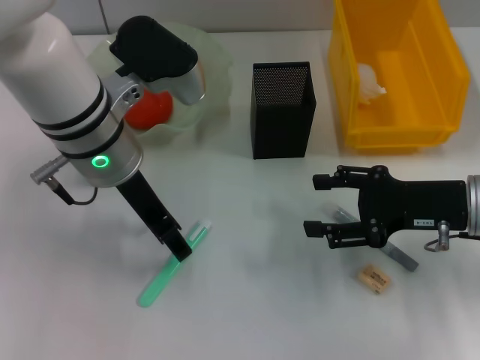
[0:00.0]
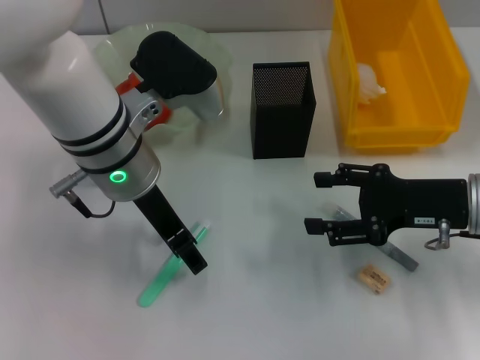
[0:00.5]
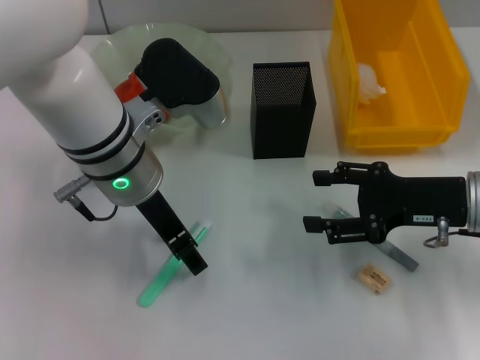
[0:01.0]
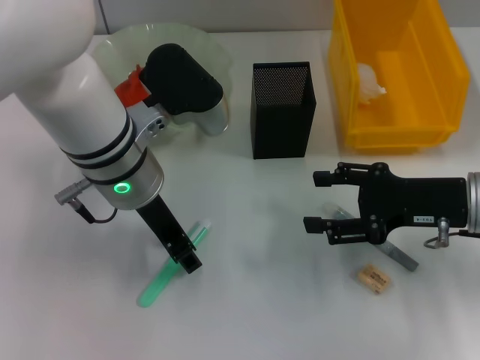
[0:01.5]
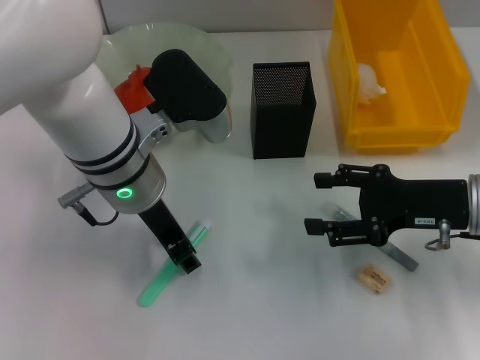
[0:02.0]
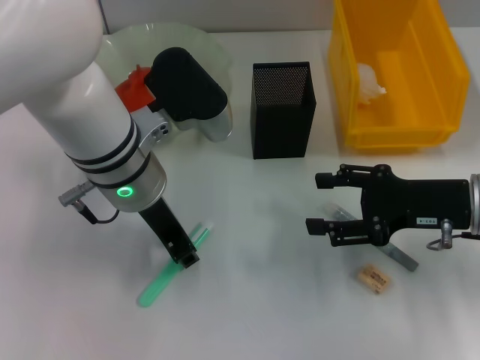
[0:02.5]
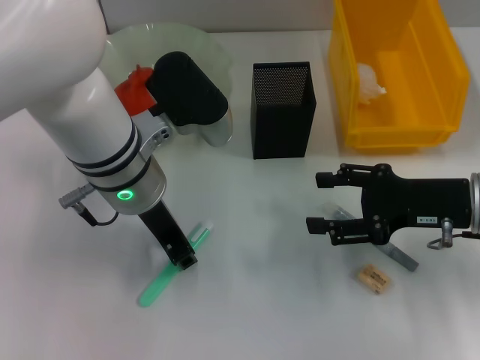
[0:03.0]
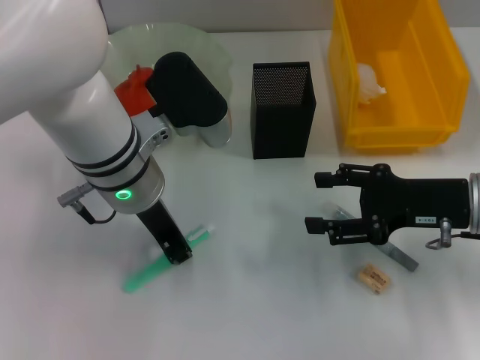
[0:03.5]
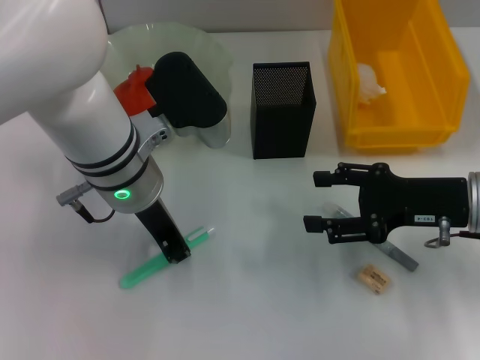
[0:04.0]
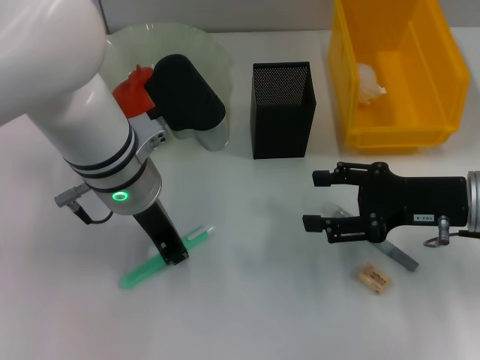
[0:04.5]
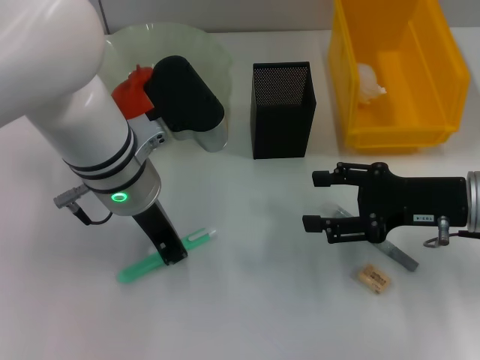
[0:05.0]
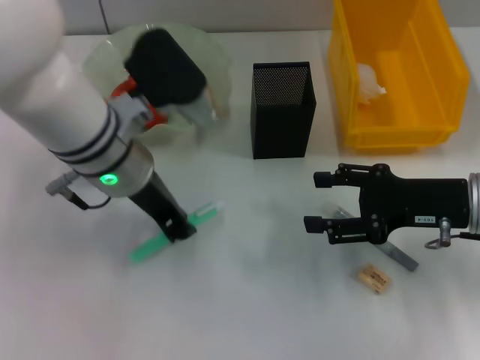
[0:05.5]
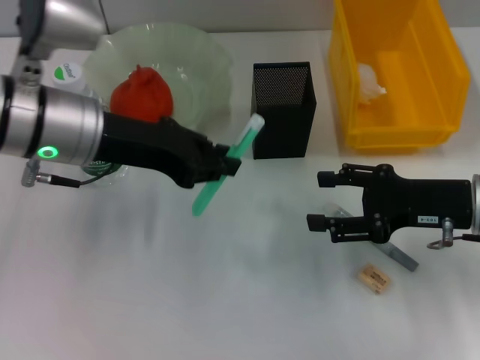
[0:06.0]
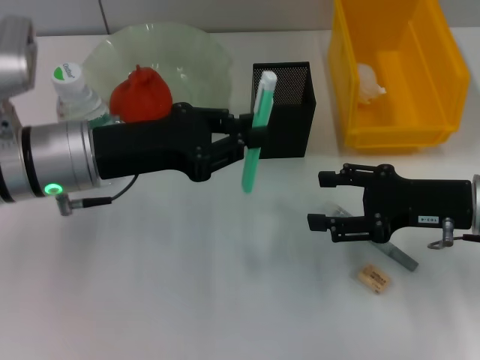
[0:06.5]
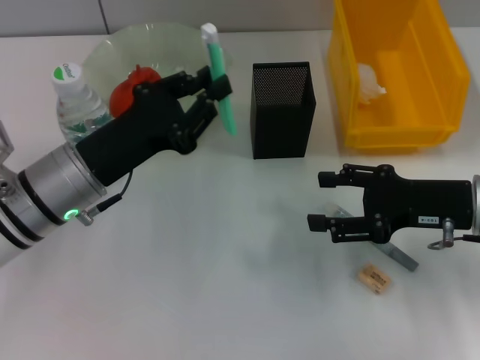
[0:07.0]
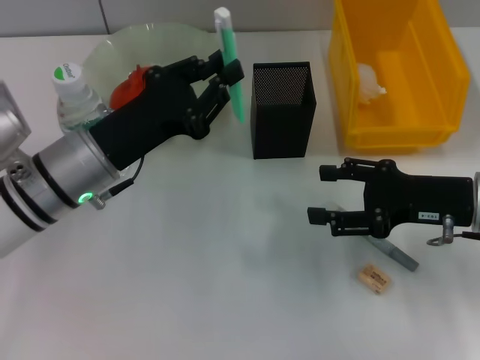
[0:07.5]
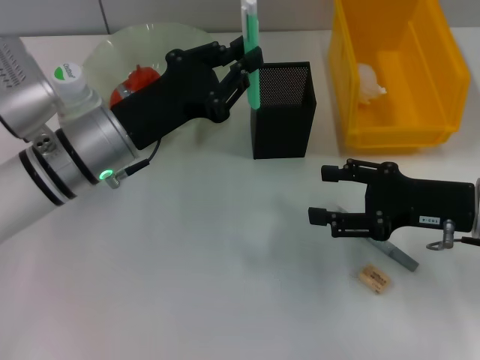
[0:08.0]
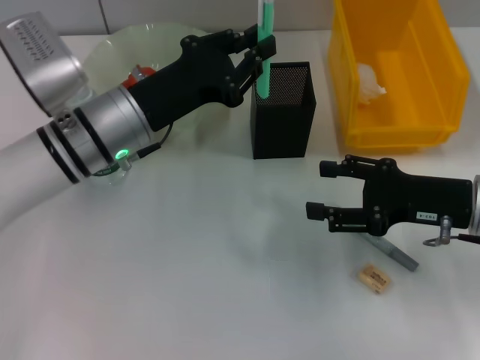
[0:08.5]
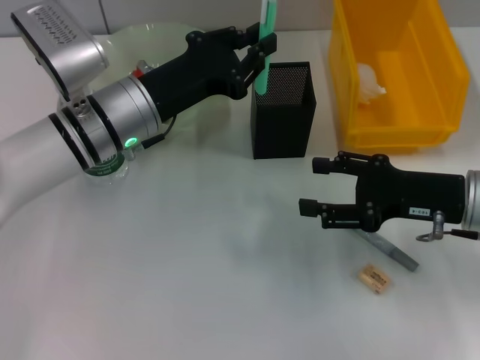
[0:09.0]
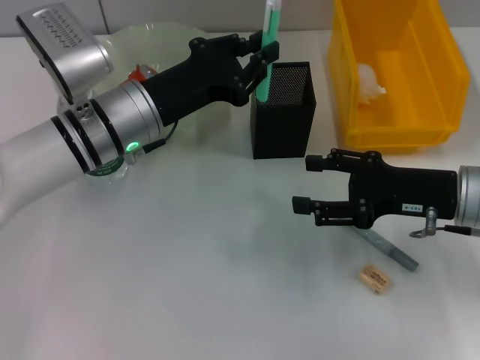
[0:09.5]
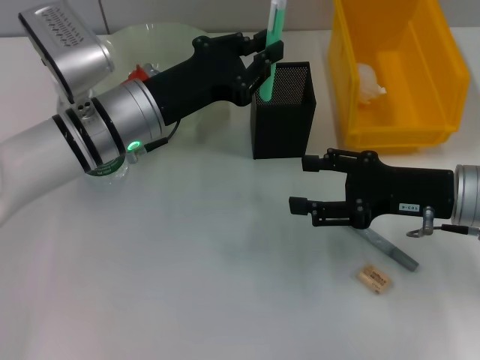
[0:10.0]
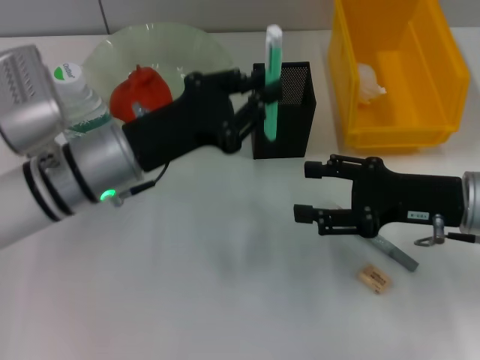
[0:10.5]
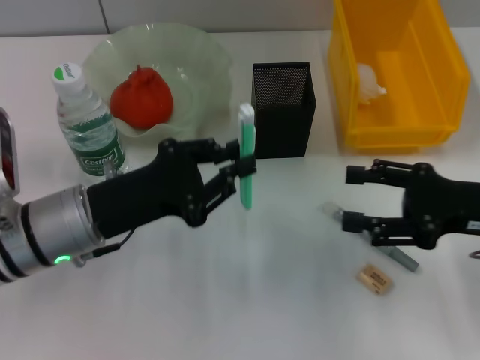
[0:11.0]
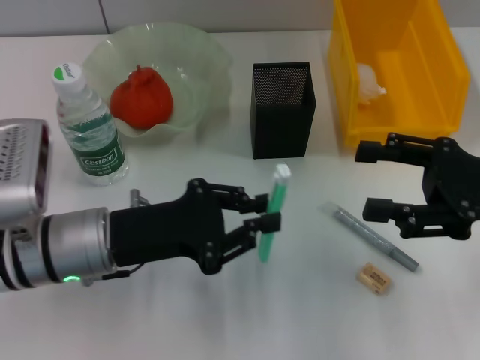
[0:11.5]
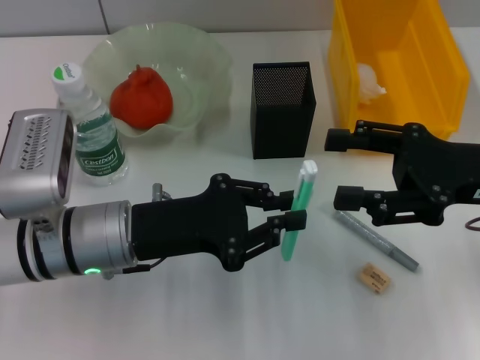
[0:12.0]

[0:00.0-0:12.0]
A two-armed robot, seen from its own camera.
Step, 0:00.0 to 0:02.5: Grab the blue utility knife with the left hand.
0:00.0 to 0:02.0: There are only small adjustments of the grippers.
0:02.0 to 0:04.0: The left gripper closes.
0:04.0 to 0:06.0: The left gripper heads to the left, covering about 5 cm.
0:06.0 to 0:08.0: The left gripper moves downward, about 10 cm.
0:08.0 to 0:10.0: The grippers make only small movements.
0:10.0 to 0:12.0: The right gripper goes some 5 cm upward; the left gripper travels backward by roughly 10 cm.

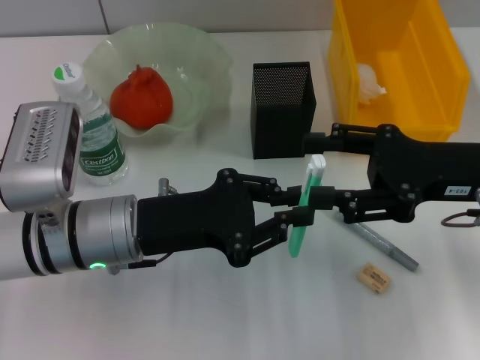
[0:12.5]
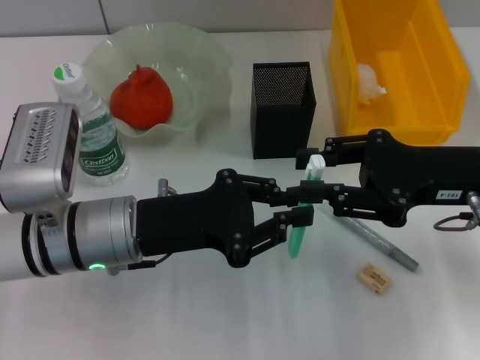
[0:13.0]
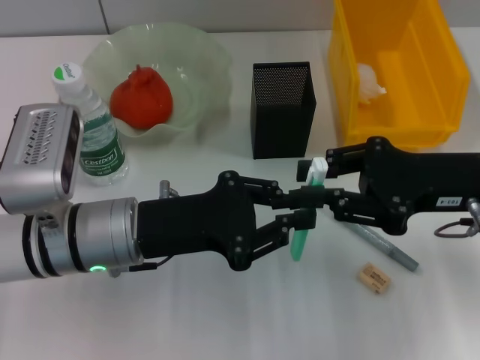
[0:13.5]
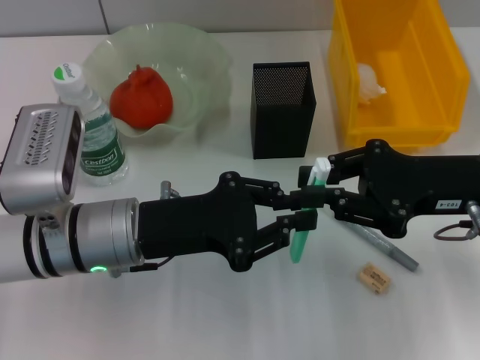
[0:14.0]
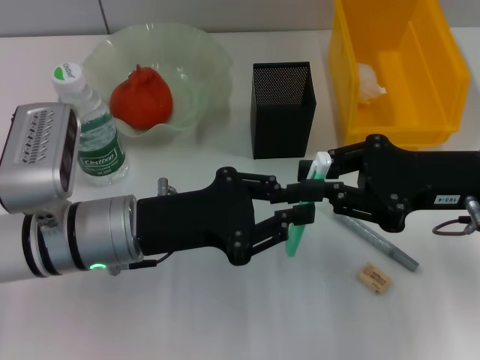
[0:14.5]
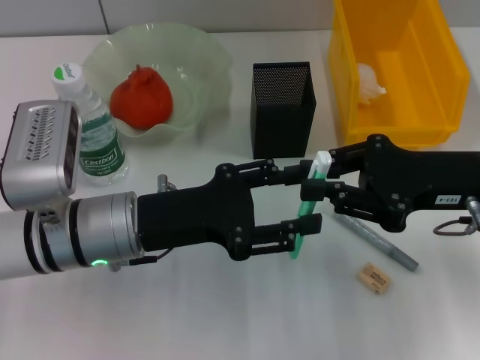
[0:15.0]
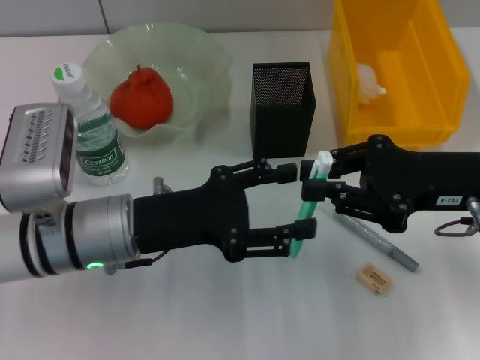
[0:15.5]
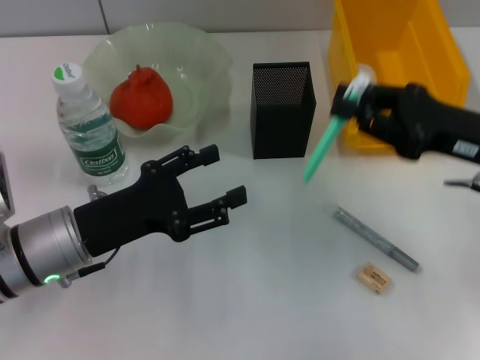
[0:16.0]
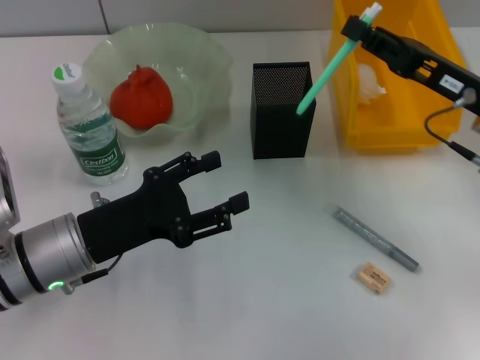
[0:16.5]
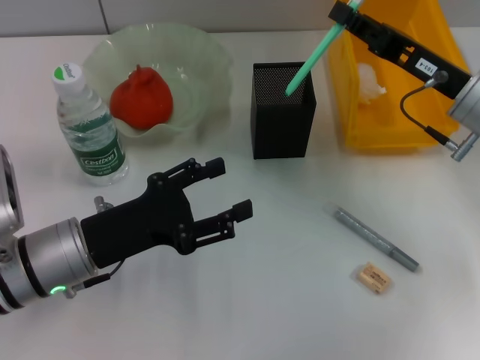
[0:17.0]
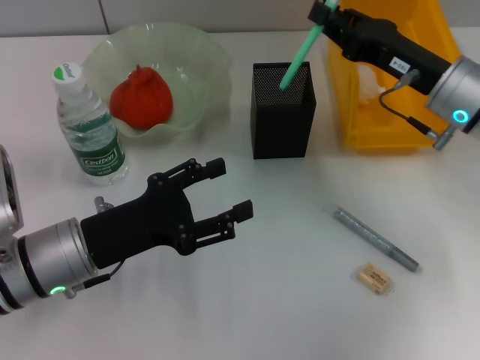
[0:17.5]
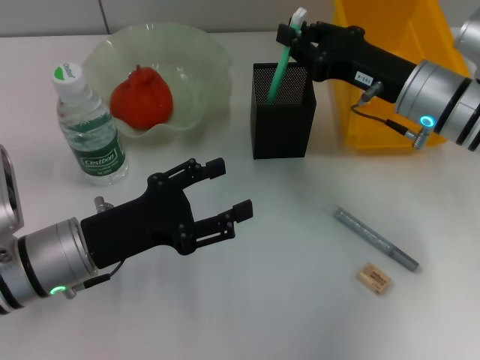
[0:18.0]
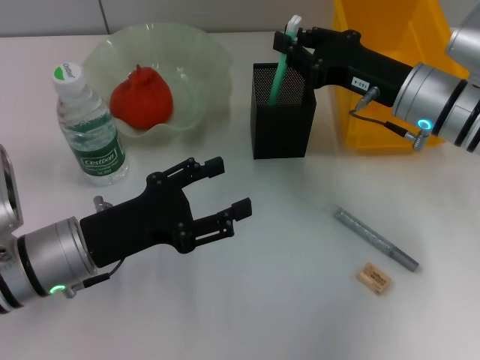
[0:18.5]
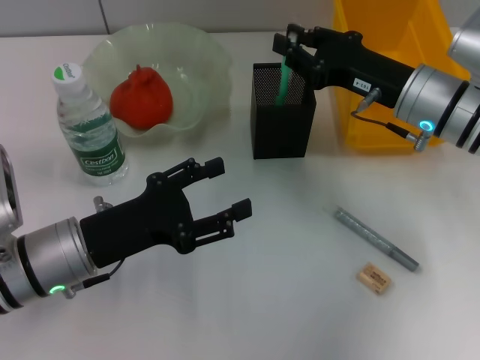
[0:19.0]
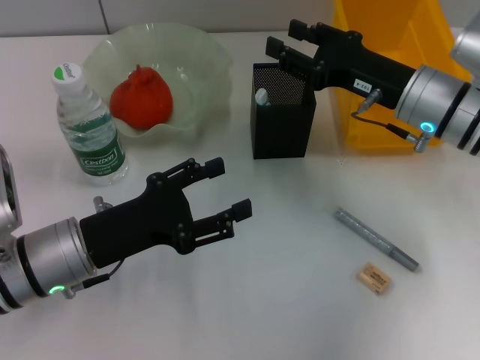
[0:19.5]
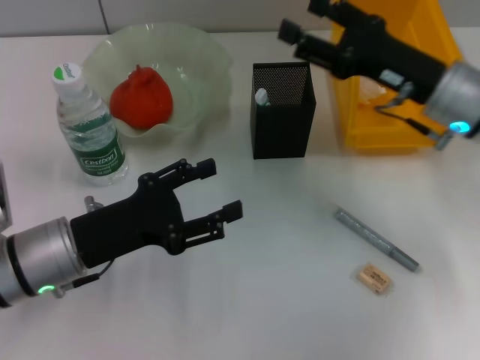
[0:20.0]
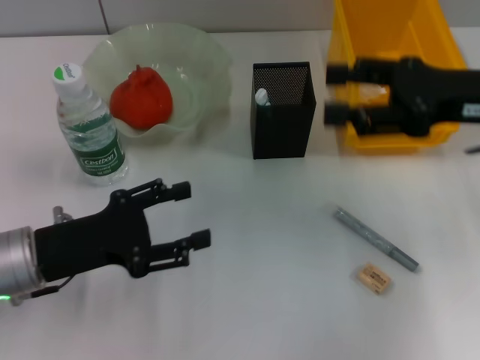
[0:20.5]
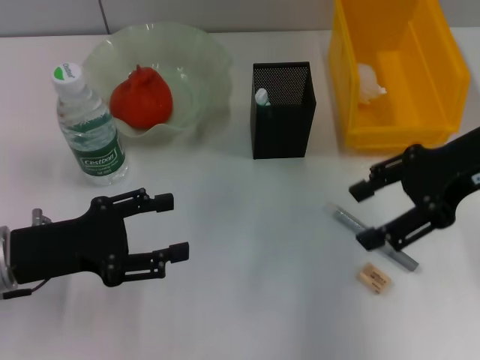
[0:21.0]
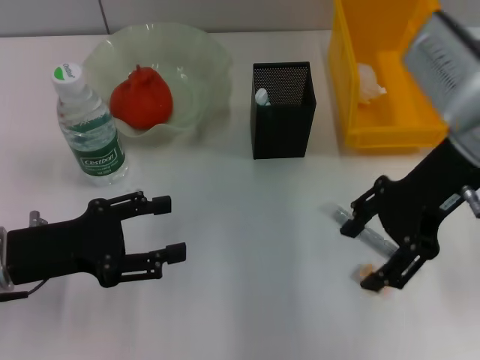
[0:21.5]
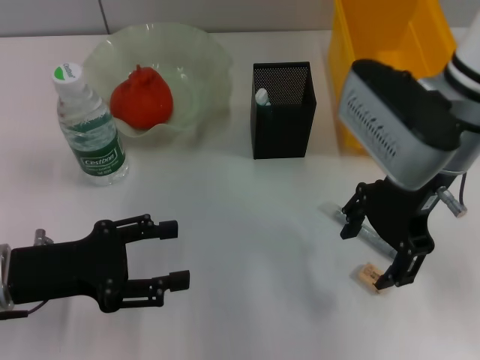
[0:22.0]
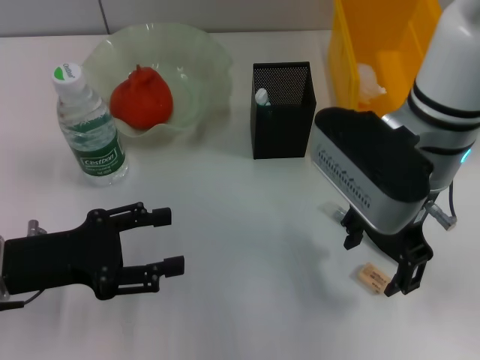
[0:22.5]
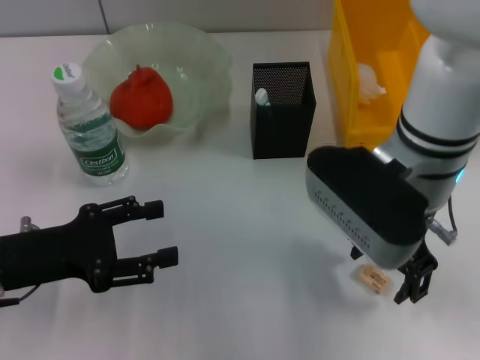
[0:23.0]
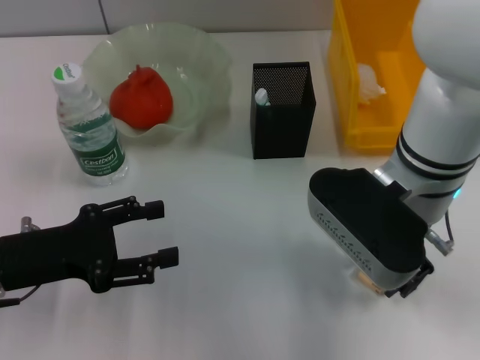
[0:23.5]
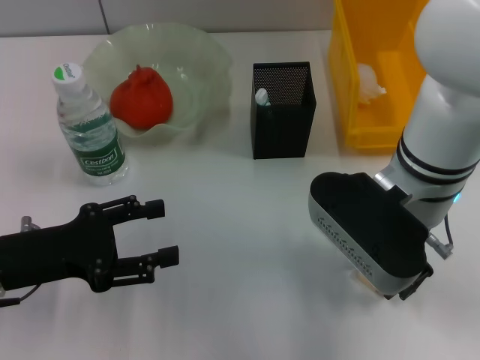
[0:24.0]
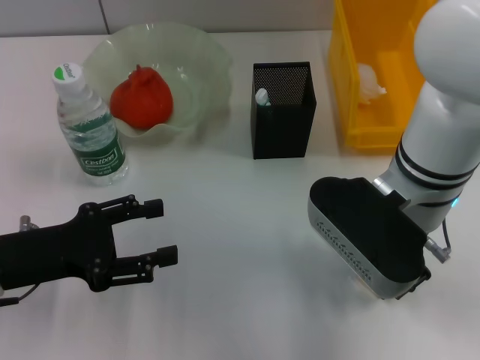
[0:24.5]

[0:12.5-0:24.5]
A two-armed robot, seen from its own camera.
Step, 0:12.5 to 0:14.5: Pass the blue utility knife from the left hand to the right hand.
Step, 0:15.0 to 0:19.0: Place the blue utility knife into the pen holder with the right hand.
Step, 0:19.5 to 0:24.0: Grab the eraser with the right hand.
0:12.5 to 0:14.5: The right gripper closes up.
0:14.5 to 0:16.5: The left gripper shifts by some 5 cm, and opens; the right gripper moves about 5 cm.
0:16.5 to 0:18.5: The right gripper moves to the left, some 5 cm.
0:18.5 to 0:20.5: The right gripper moves upward and to the right, roughly 10 cm, and opens up.
0:20.5 to 0:22.5: The right gripper goes some 15 cm to the left.
0:22.5 to 0:24.5: The right gripper closes its fingers.

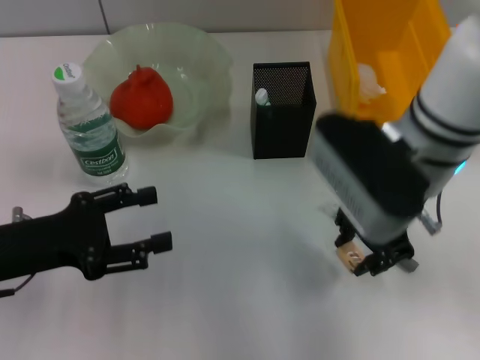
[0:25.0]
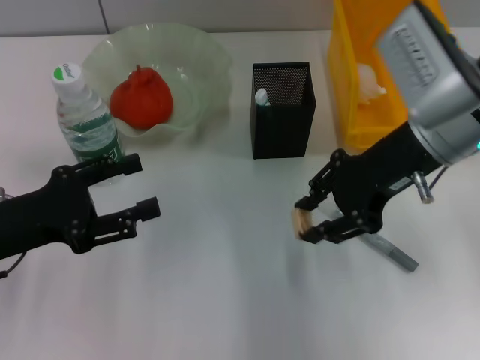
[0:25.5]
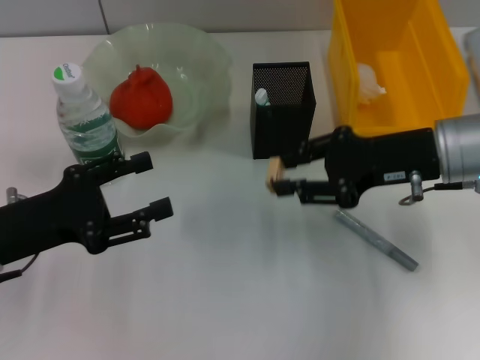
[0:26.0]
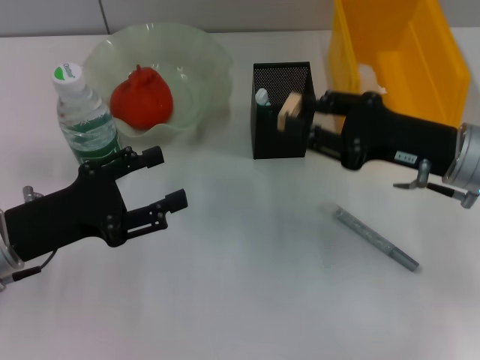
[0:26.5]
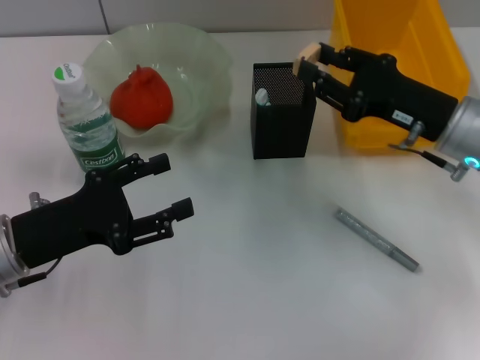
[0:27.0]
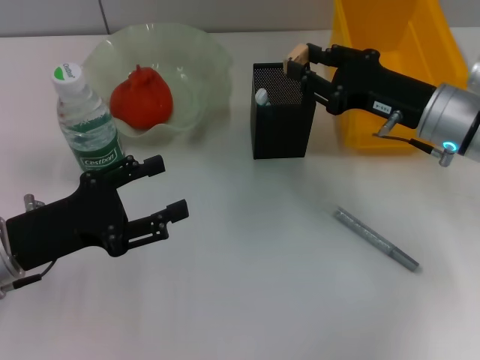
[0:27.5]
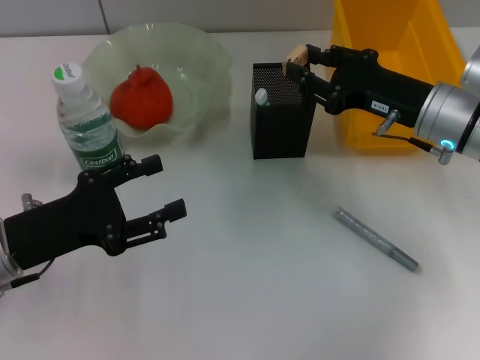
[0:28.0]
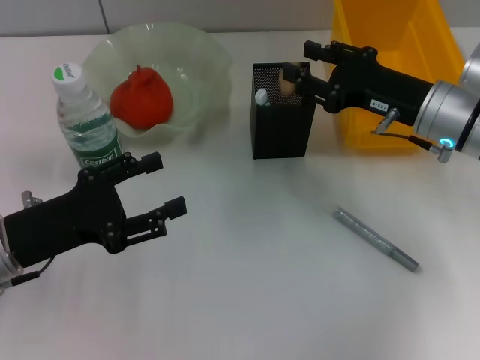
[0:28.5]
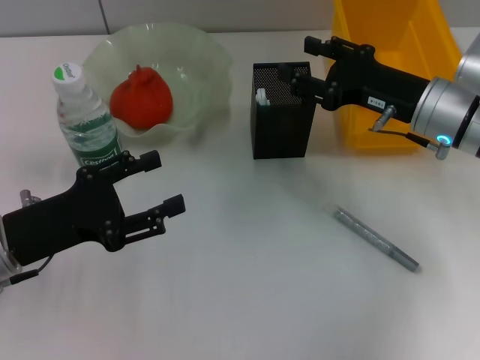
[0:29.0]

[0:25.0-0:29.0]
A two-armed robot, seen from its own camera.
Step, 0:25.0 to 0:28.5: Put the eraser into the pen holder with the right hand.
0:25.0 to 0:27.0: The right gripper shifts approximately 15 cm to the right and downward.
0:27.0 to 0:29.0: The right gripper opens its fingers.
